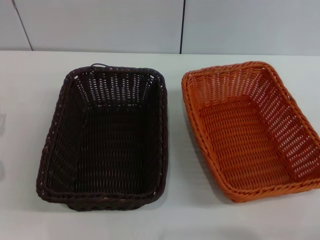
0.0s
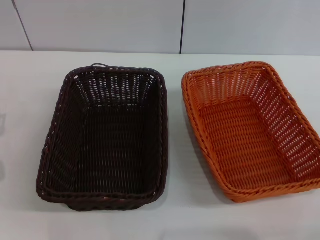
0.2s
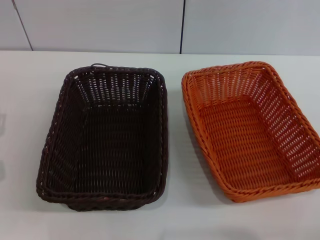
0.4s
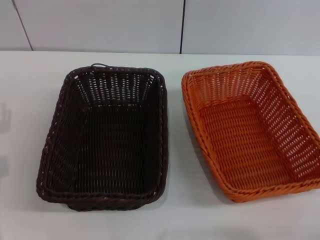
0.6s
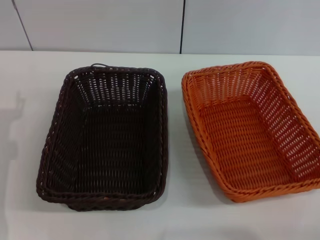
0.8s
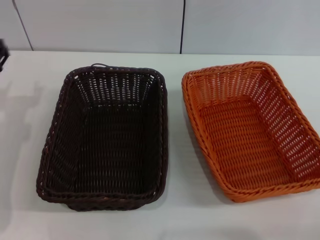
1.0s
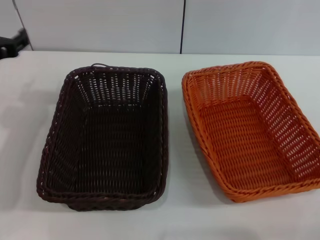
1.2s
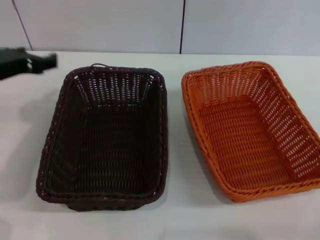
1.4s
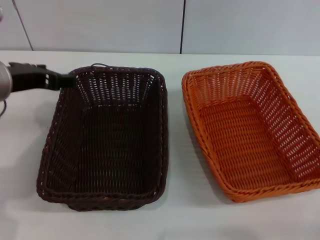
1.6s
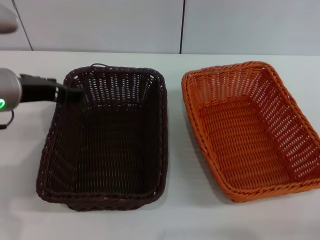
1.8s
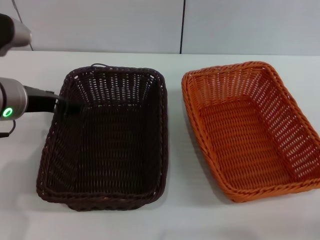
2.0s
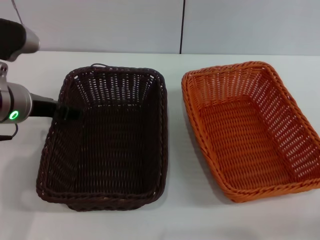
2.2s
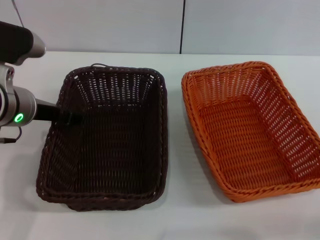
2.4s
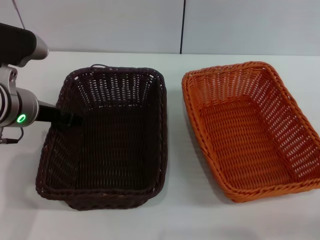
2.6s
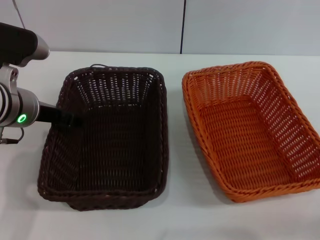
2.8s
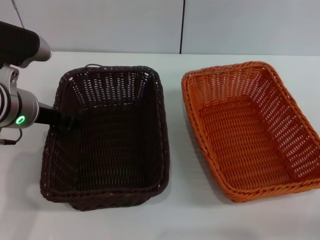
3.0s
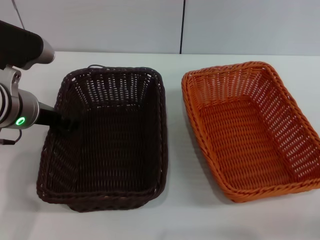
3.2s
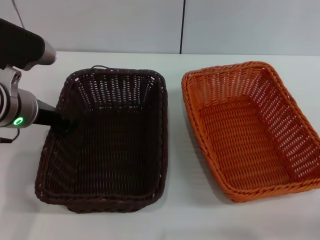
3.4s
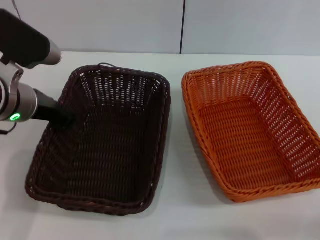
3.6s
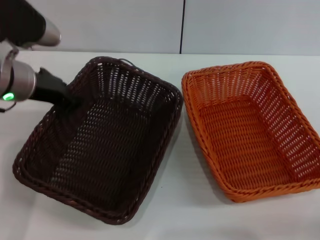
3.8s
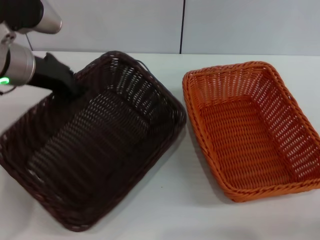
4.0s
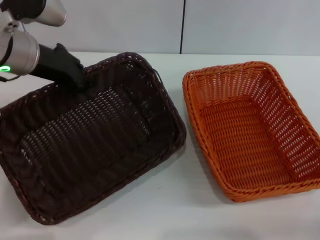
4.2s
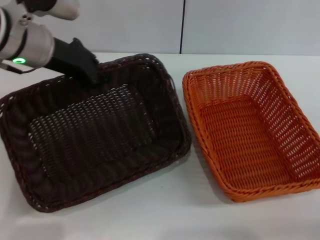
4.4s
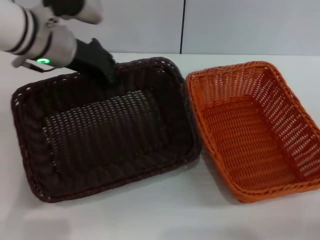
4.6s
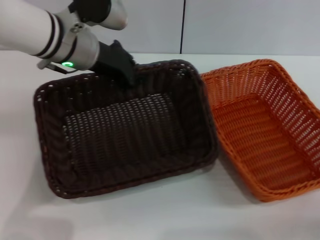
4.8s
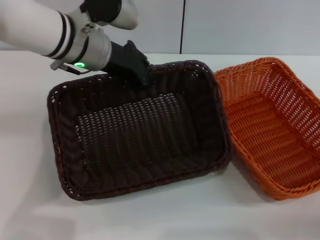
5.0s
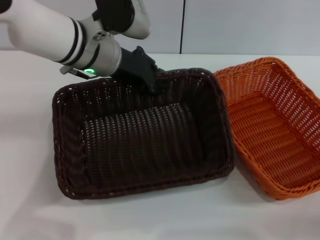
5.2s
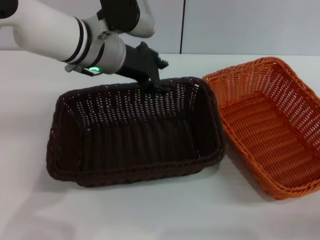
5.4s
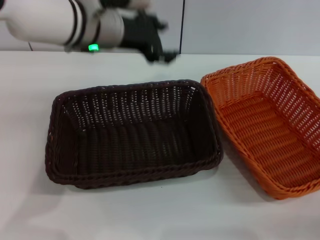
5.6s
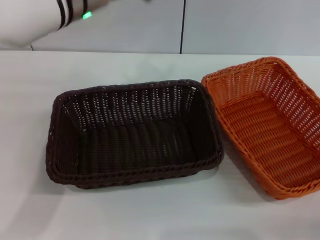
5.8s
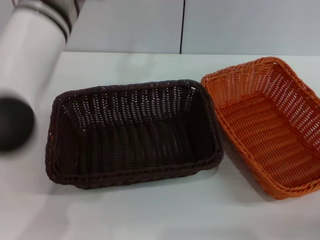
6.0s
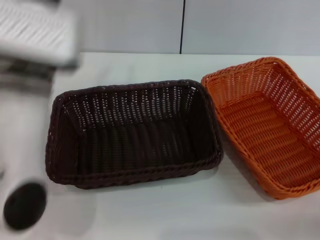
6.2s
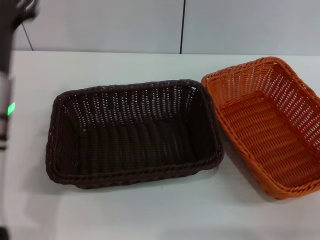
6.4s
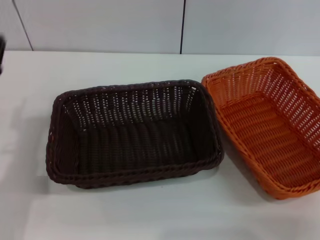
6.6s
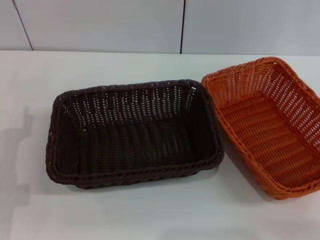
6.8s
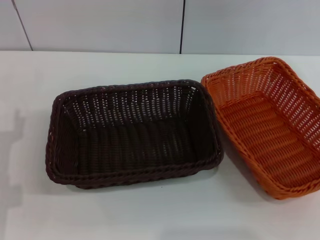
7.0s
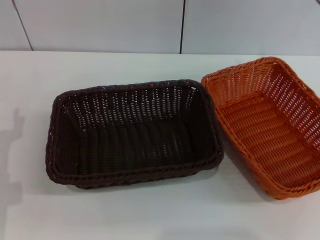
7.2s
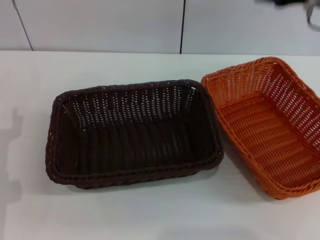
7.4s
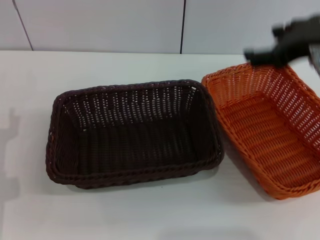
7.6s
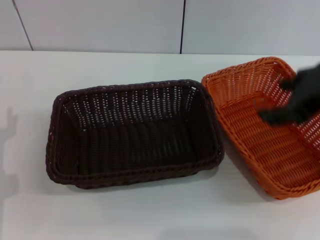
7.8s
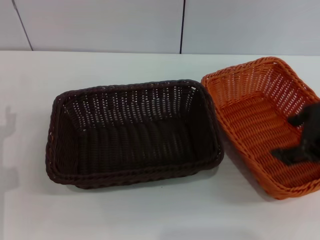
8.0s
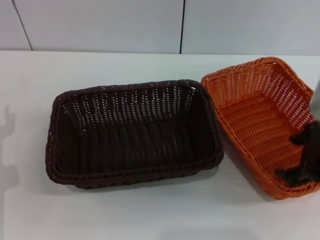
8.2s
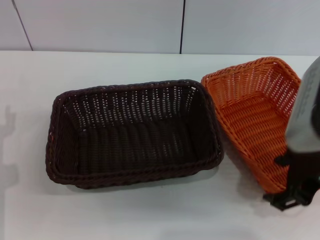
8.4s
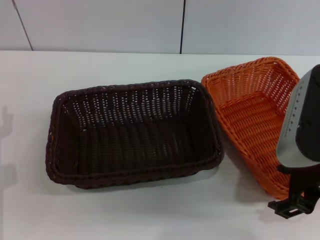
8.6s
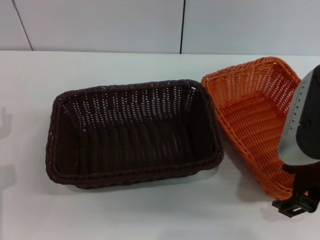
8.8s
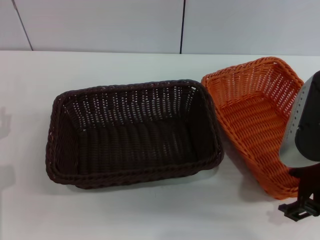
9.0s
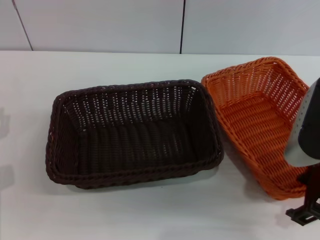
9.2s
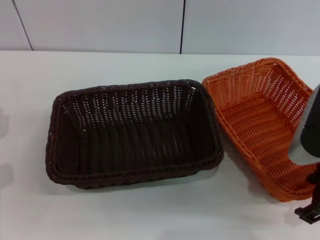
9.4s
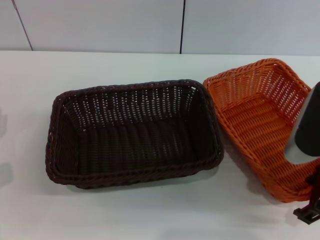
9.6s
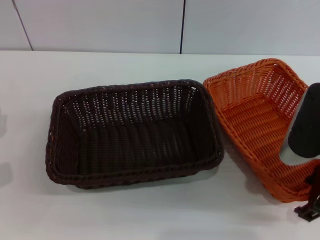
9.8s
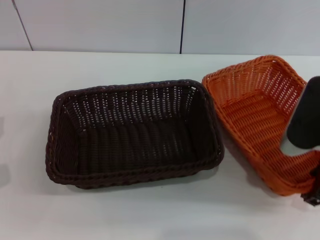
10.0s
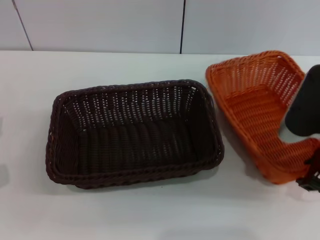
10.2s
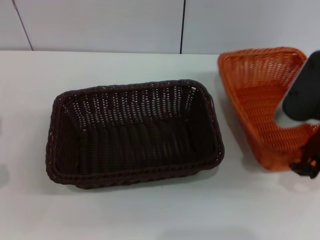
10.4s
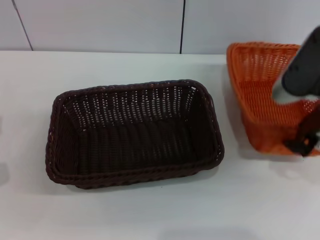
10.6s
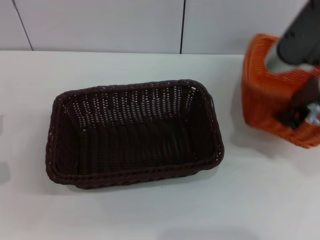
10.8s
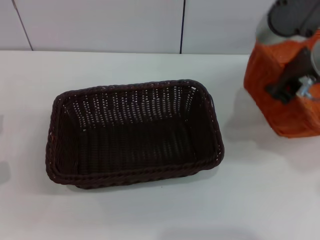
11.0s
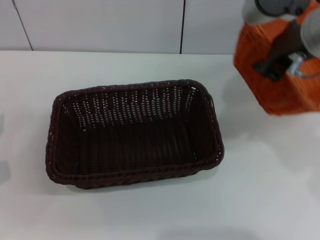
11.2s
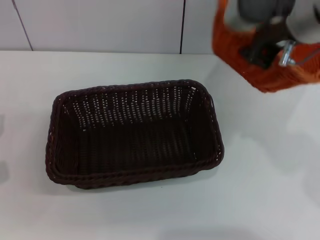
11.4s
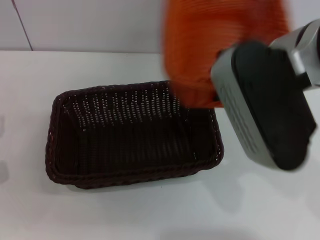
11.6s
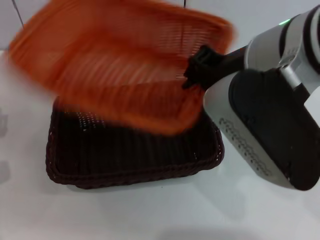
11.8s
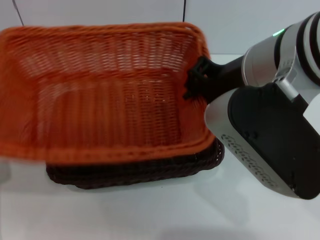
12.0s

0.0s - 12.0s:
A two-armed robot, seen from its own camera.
Step, 0.0s - 4.0s: Pick up the dark basket with the left gripper.
Step, 4.2s - 5.4s: Place the dark basket in the center of view with the left gripper.
Step, 5.6s - 11.2s: Pick up the light basket with the right gripper.
0.0s - 1.6s: The left gripper is displaced upward and to the right by some 20 cm.
1.6s - 3.0s: The grippers move only a little.
3.0s - 4.4s: The left gripper is displaced upward by roughly 5 cm, and closes up.
4.4s - 6.0s: The left gripper heads to the right, covering about 10 cm, and opens.
6.0s - 7.6s: The right gripper travels upward and to the left by approximately 25 cm, while the left gripper travels downward, to the left and backward by roughly 30 cm.
7.6s - 9.0s: The right gripper travels downward and backward by some 10 cm.
9.0s - 10.4s: The right gripper changes place by approximately 5 cm, and closes.
10.4s - 12.0s: The right gripper moves to the left and upward, approximately 15 cm.

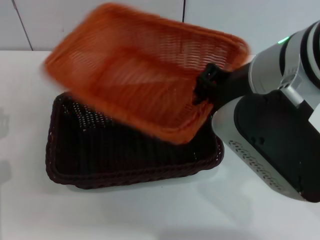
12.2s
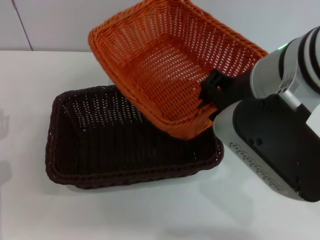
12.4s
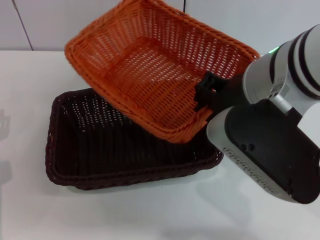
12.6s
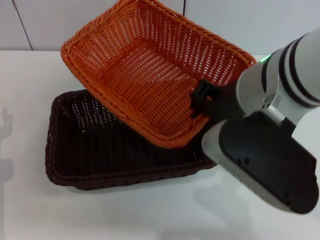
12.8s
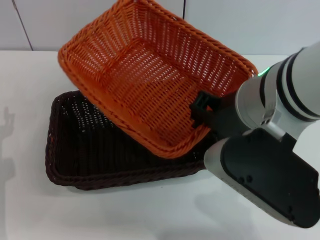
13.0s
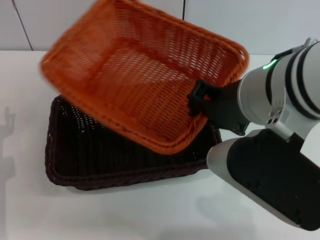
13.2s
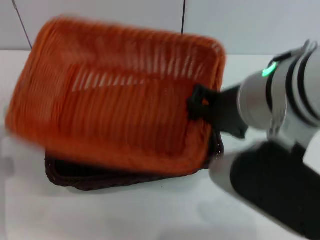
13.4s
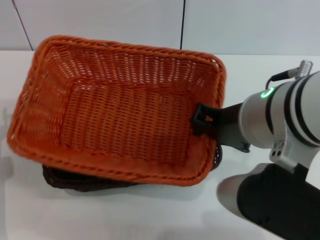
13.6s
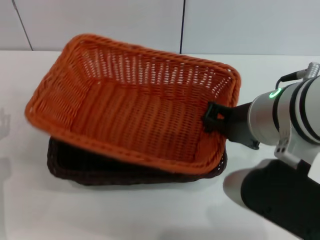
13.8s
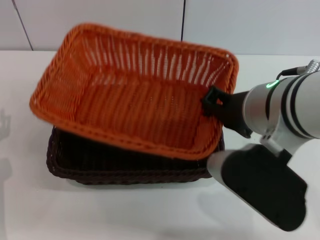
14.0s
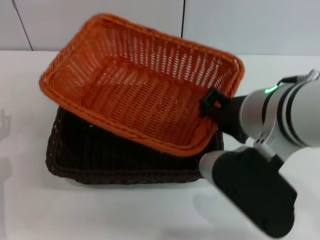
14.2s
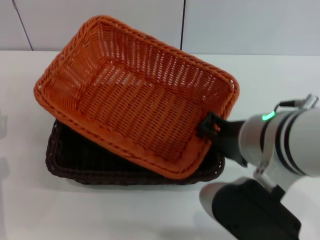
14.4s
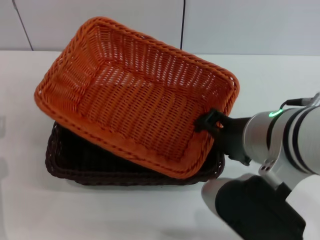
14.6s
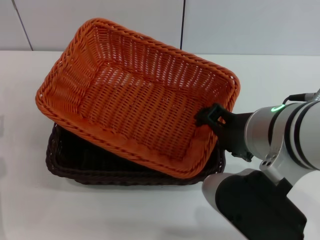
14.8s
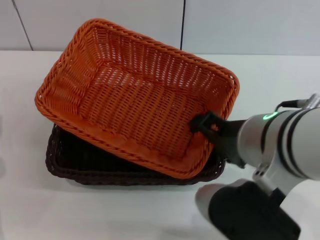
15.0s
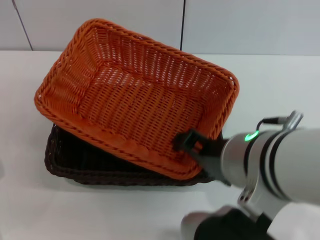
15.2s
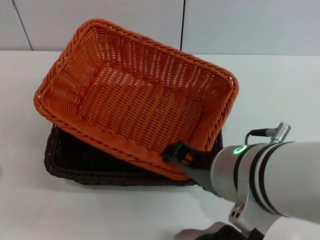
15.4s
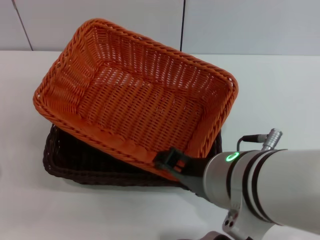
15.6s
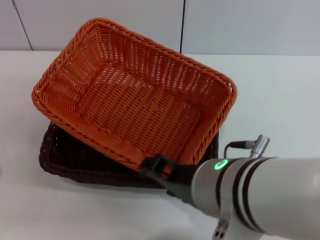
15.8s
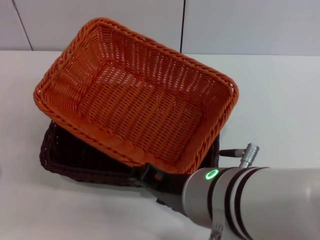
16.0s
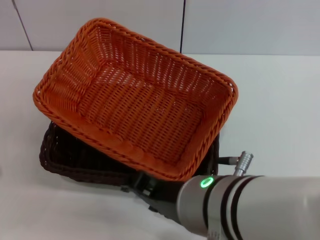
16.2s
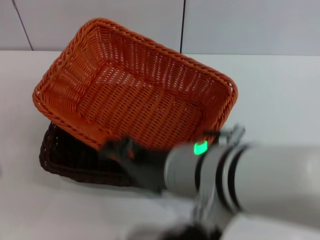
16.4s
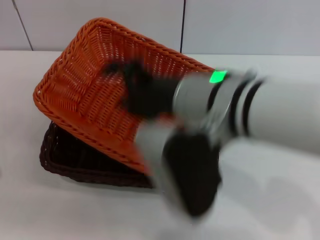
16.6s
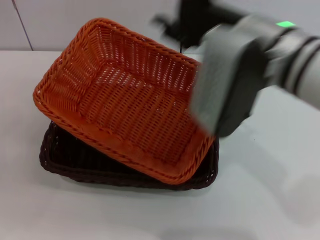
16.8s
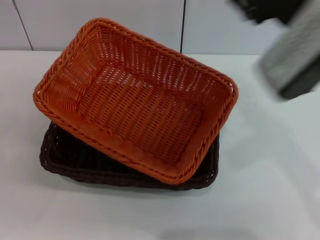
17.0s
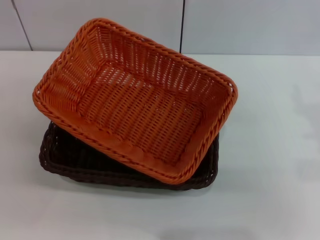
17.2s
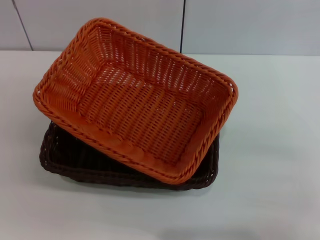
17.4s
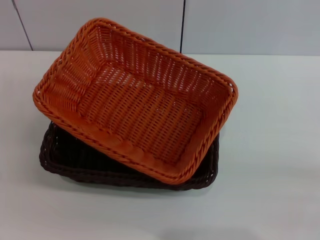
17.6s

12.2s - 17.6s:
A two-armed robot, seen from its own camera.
Step, 12.2s - 16.0s: Place the light basket on the dark basket with the right gripper.
13.6s - 15.0s: The right gripper opens up.
15.0s - 16.2s: The right gripper heads to the left, covering approximately 5 cm.
16.2s - 17.6s: The right gripper goes some 30 cm to the right.
